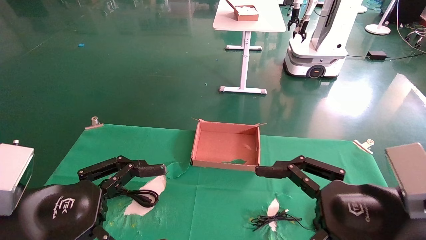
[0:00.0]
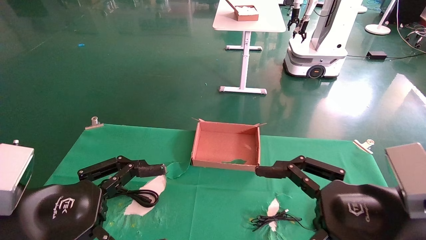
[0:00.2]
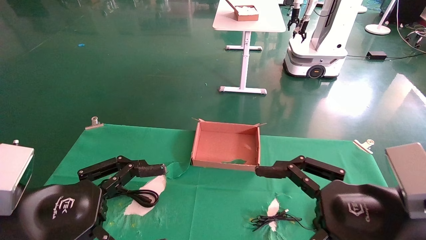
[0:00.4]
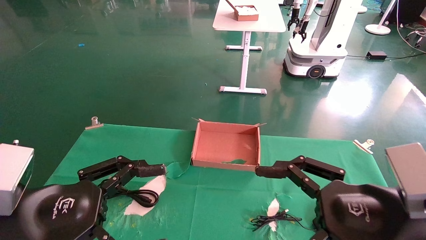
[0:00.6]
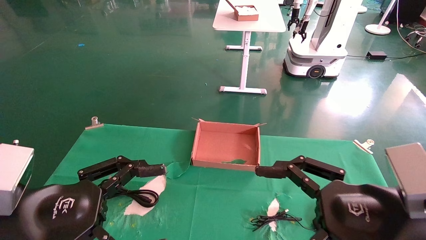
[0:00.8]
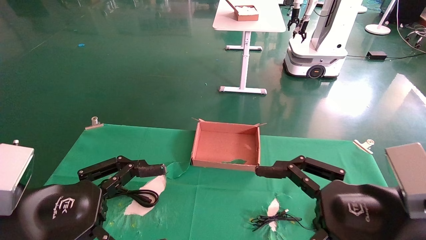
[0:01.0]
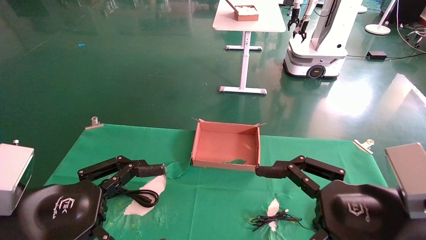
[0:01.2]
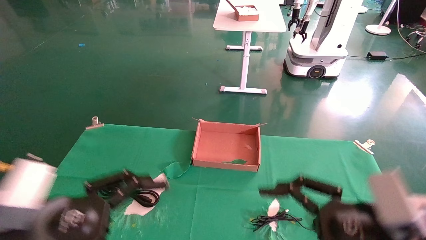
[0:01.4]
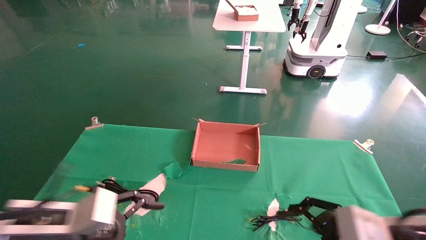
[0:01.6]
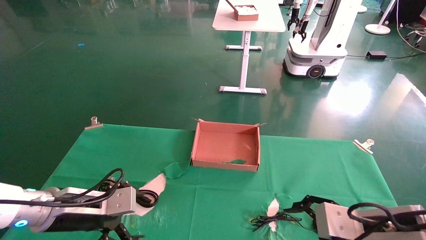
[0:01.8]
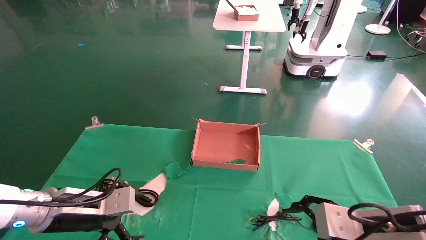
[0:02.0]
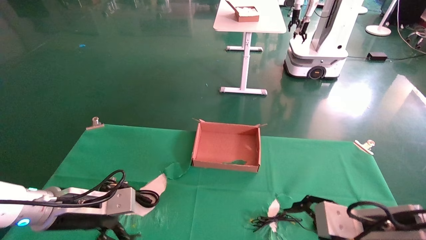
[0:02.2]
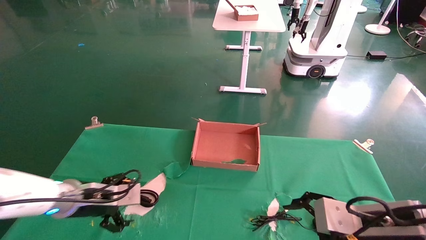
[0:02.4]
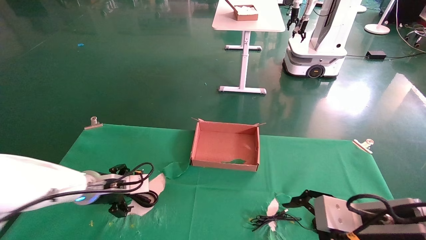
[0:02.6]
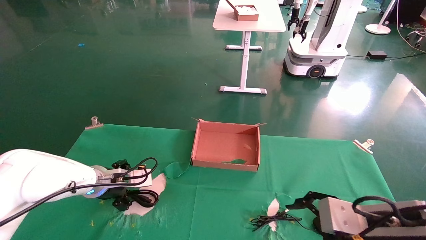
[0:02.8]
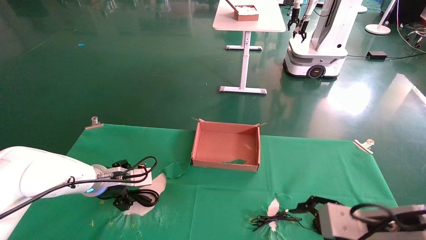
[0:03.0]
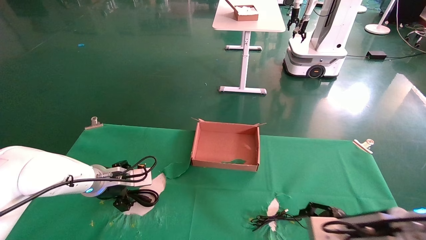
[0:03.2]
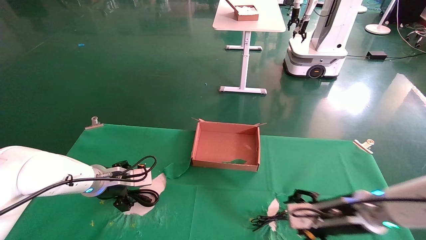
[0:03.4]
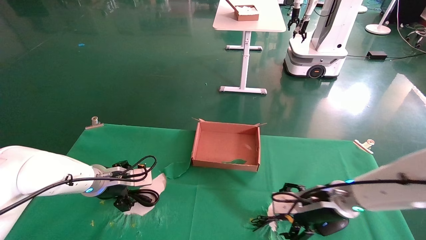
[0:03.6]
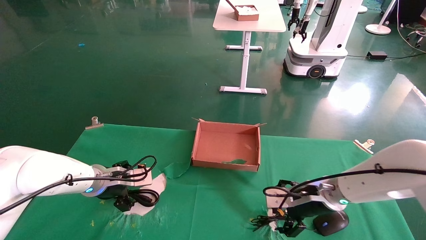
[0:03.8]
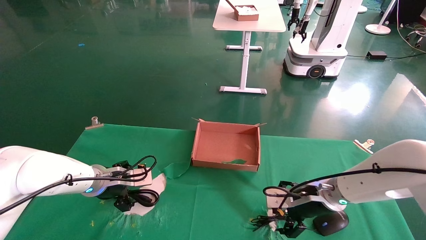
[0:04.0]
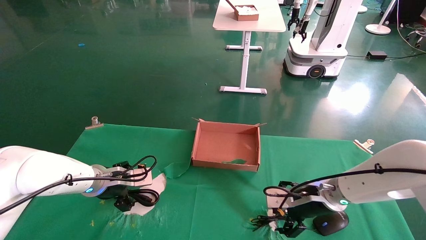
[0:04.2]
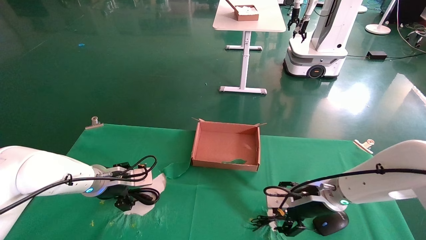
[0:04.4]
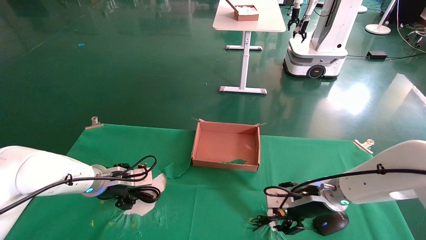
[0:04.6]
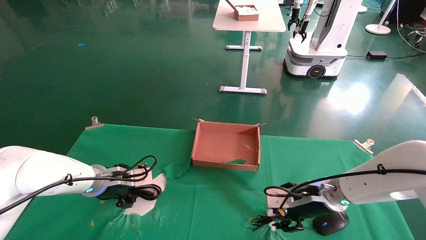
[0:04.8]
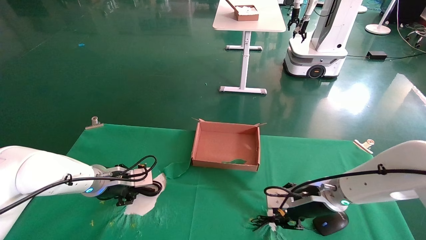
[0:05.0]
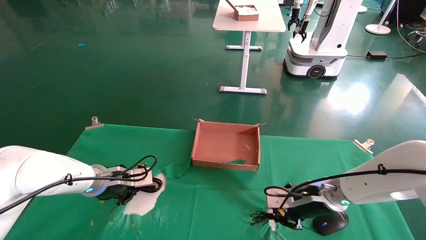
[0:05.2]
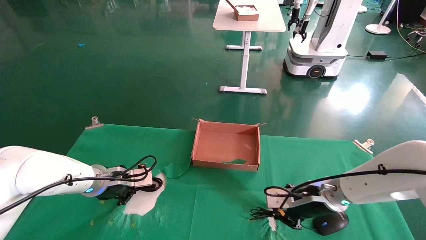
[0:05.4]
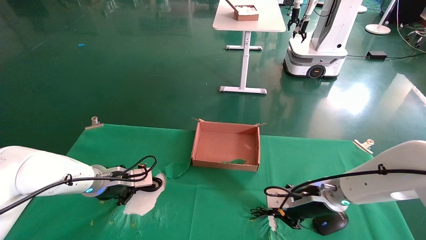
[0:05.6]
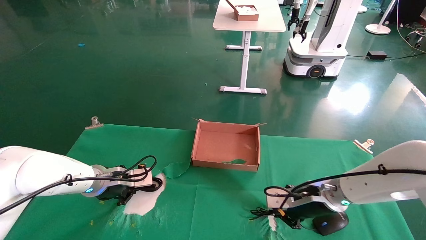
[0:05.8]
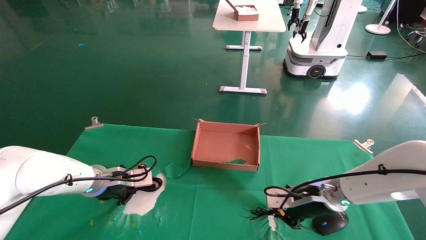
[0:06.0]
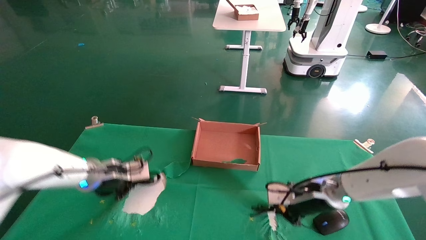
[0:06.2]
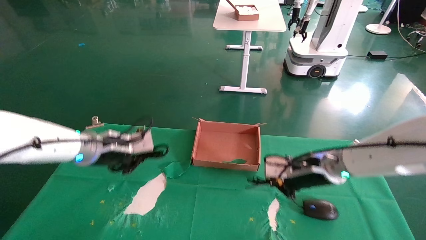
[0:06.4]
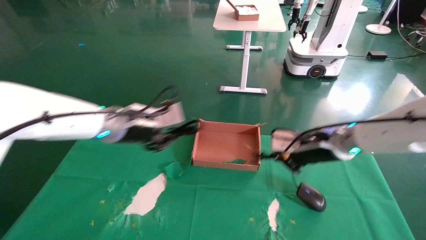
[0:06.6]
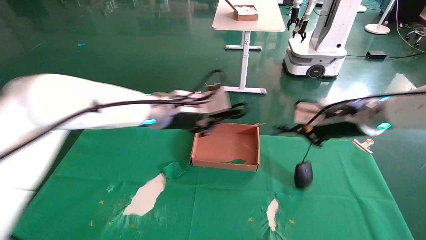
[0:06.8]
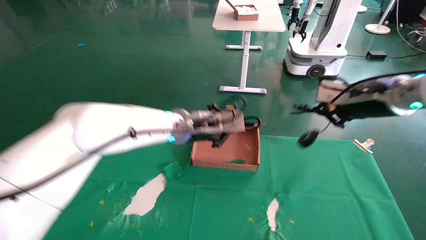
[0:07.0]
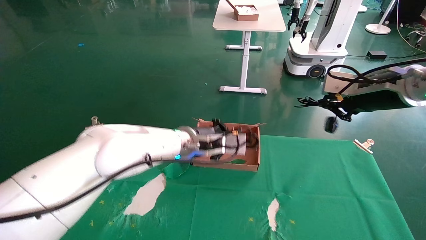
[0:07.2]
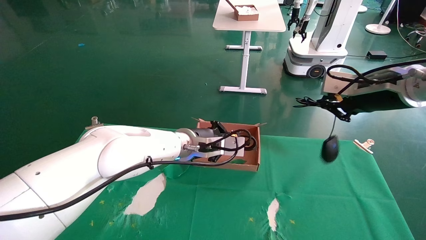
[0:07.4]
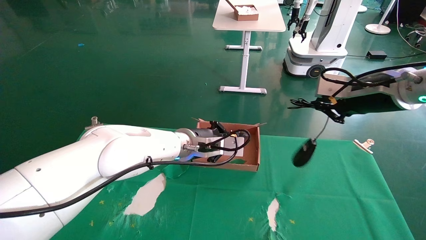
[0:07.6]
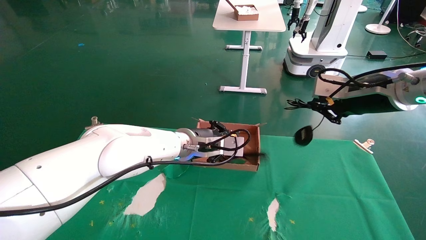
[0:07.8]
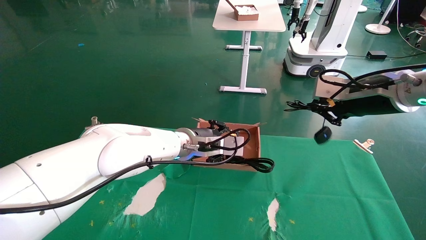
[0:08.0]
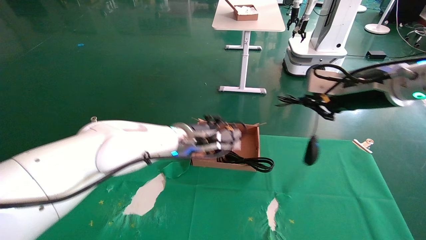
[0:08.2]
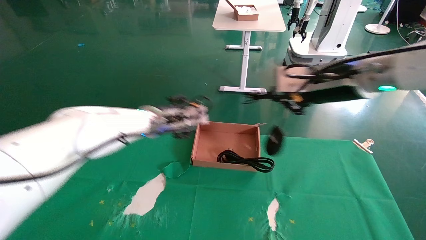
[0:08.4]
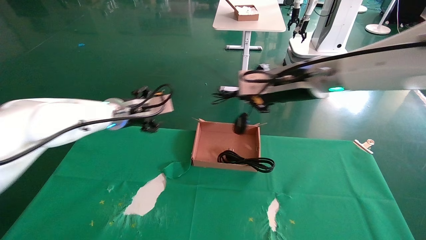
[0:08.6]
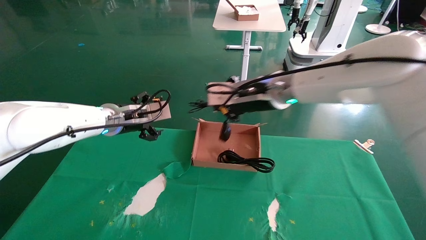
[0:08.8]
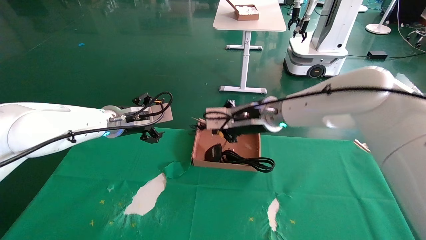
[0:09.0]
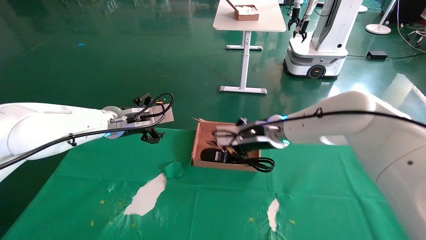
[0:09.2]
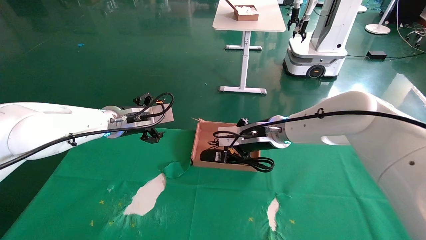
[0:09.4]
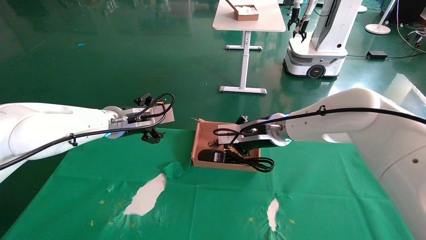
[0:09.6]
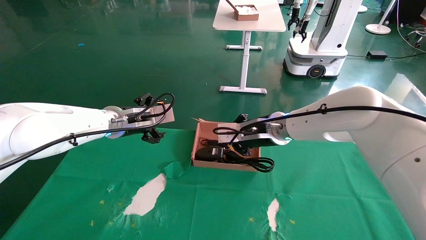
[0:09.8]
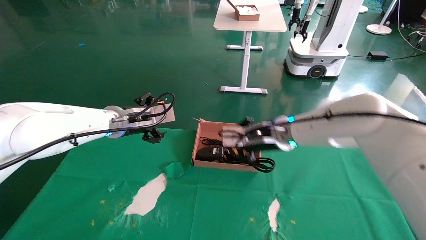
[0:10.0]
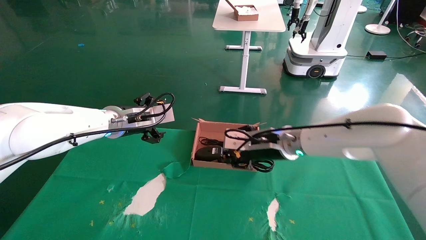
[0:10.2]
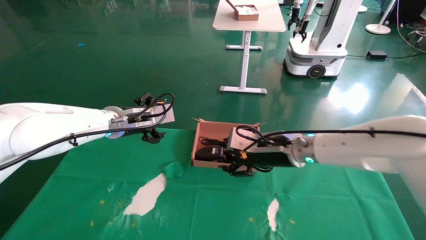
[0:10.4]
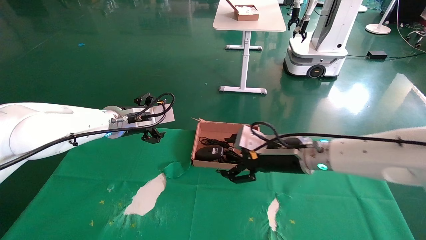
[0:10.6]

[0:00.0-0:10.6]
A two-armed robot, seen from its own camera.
Step, 0:01.6 to 0:06.4: Grab and lift both the mouse and power cord from the accessory packaging area at the same time.
0:00.0 to 0:01.6: The left gripper moves forward and downward, about 10 cm. The right gripper is displaced downward by roughly 5 cm.
0:01.6 to 0:03.0: The left gripper is displaced forward by approximately 20 cm.
0:03.0 to 0:04.6: The right gripper is displaced forward by about 15 cm.
0:04.6 to 0:06.0: The left gripper closes its fingers, while the right gripper closes.
0:06.0 to 0:07.6: The right gripper travels upward by some 20 cm; the left gripper moves to the right, about 20 cm.
0:07.6 to 0:09.0: Both grippers travel together to the left, approximately 20 cm. The left gripper opens up.
0:09.0 to 0:10.6: The right gripper is displaced downward and to the right by roughly 10 cm, and opens up.

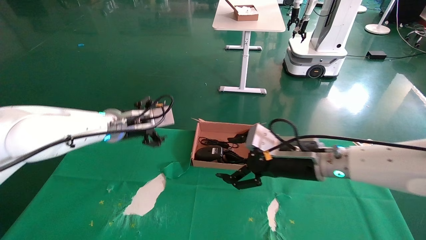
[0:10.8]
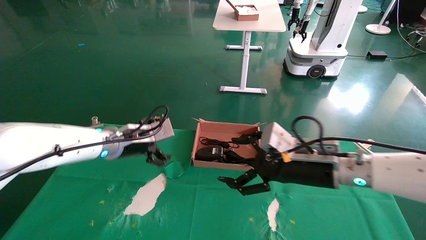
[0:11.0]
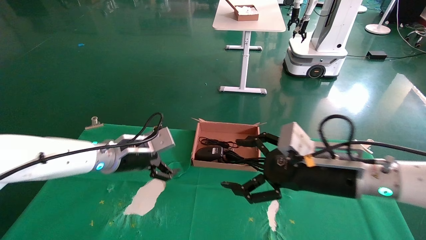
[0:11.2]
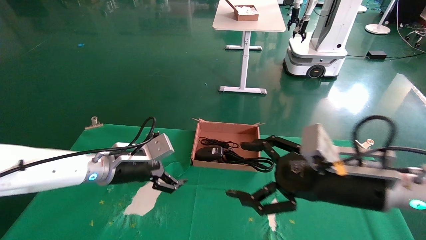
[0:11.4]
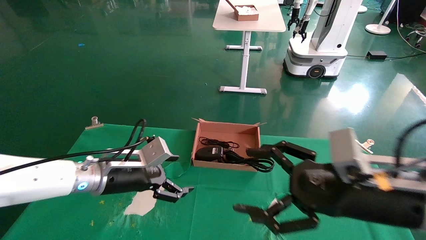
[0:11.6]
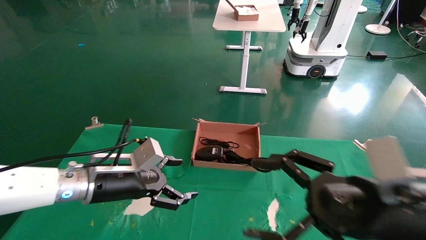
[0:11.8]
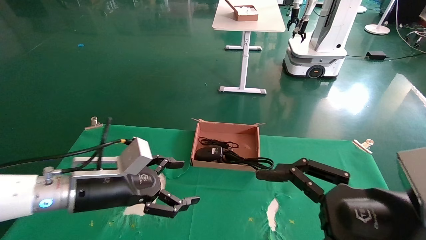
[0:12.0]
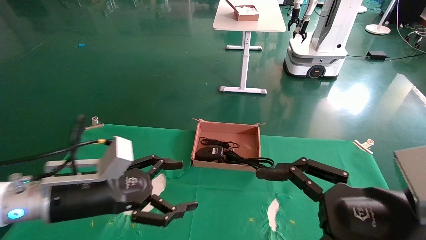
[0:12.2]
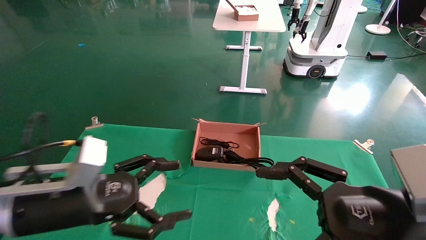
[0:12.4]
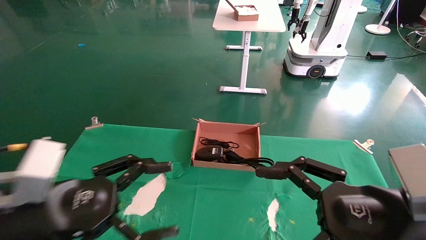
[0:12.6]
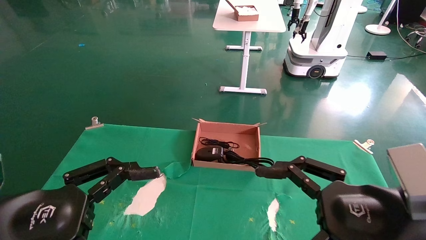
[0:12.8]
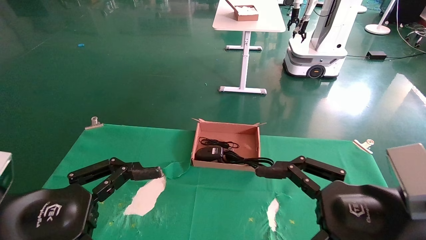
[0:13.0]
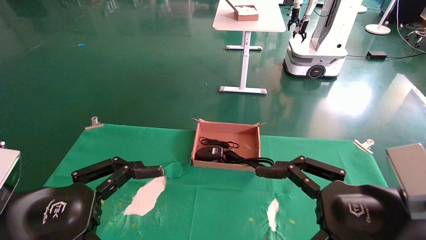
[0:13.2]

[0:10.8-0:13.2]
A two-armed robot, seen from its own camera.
0:10.8 to 0:12.0: The left gripper shifts roughly 15 cm backward and downward, while the right gripper heads backward, covering about 20 cm.
0:12.0 to 0:13.2: The left gripper heads backward, covering some 15 cm.
